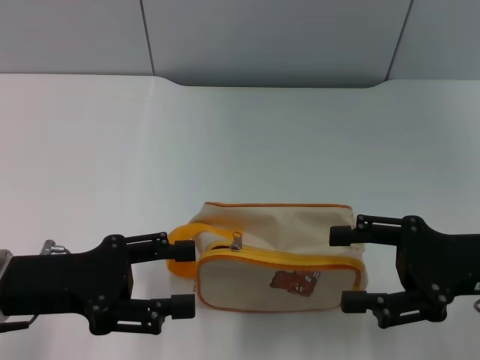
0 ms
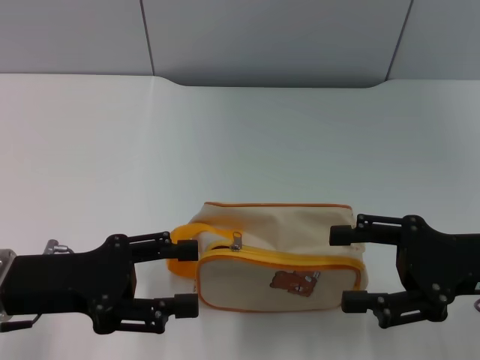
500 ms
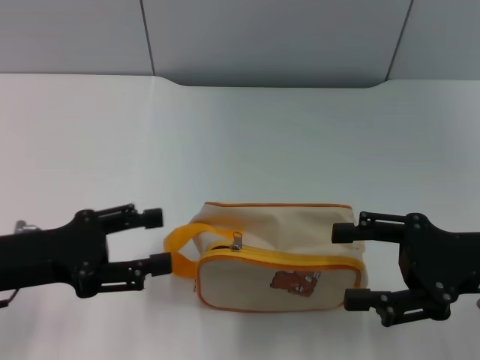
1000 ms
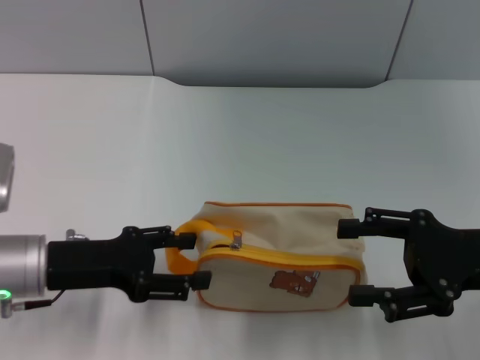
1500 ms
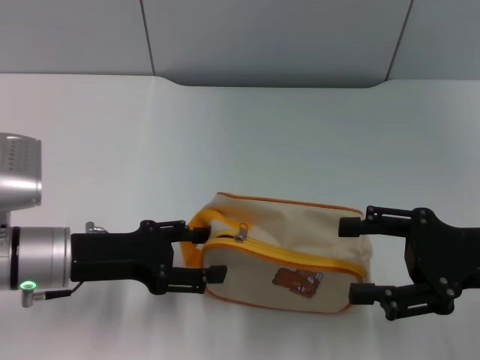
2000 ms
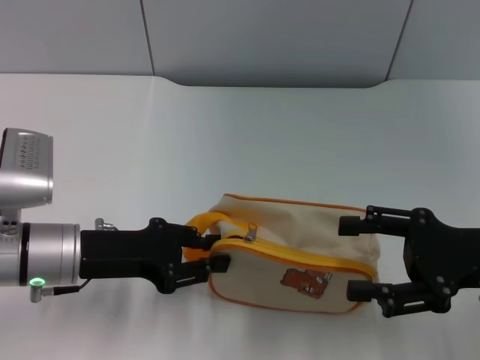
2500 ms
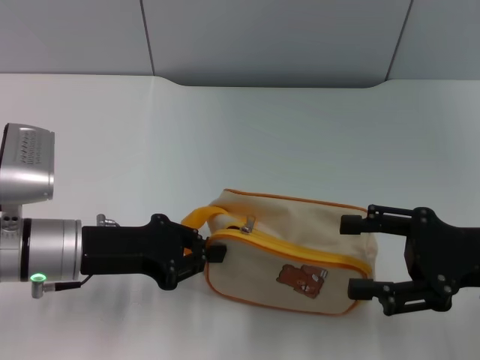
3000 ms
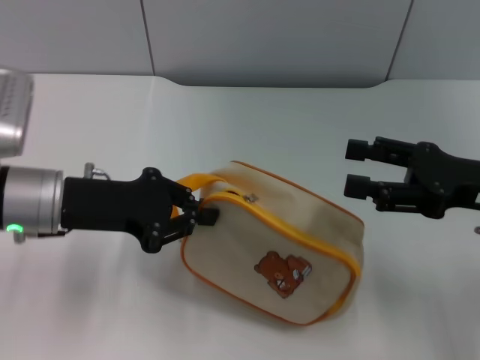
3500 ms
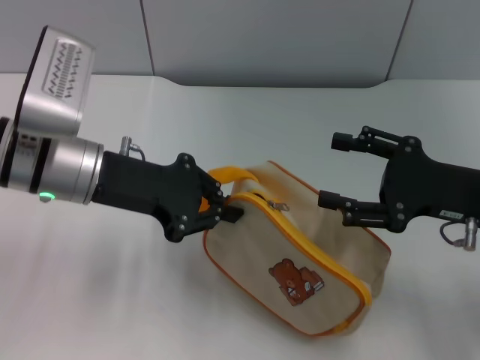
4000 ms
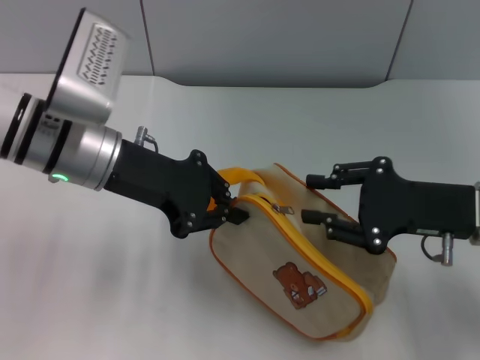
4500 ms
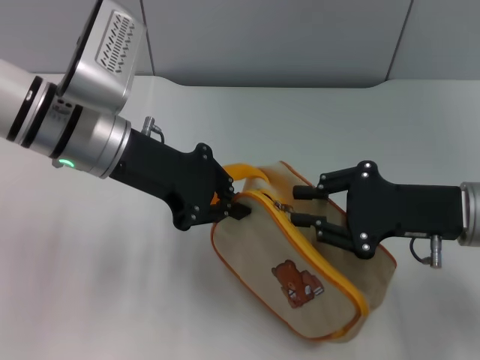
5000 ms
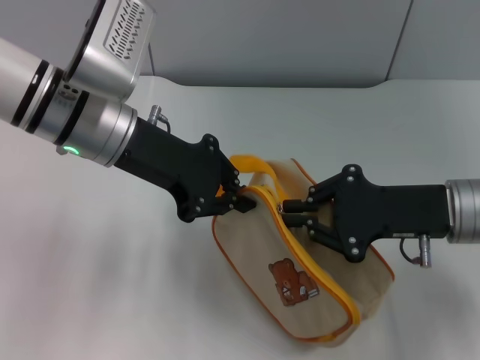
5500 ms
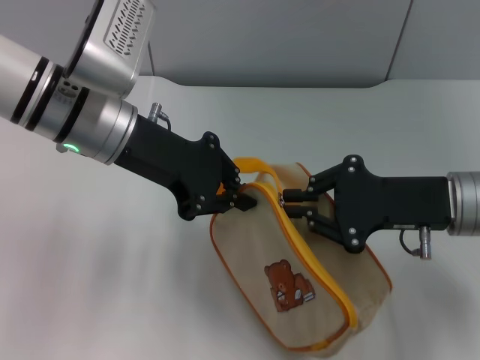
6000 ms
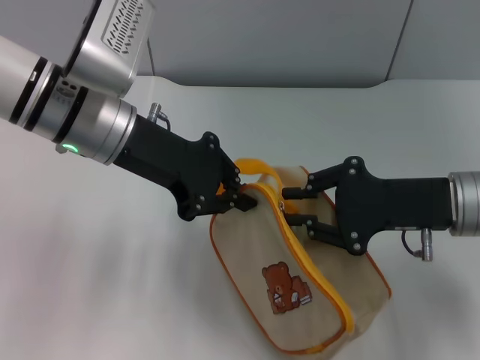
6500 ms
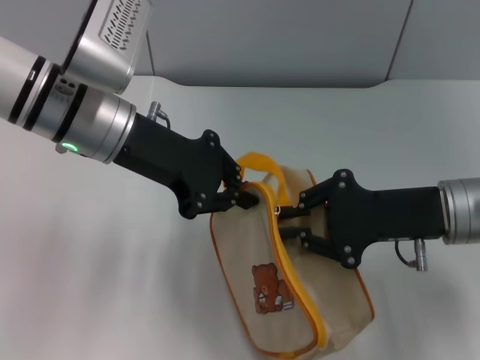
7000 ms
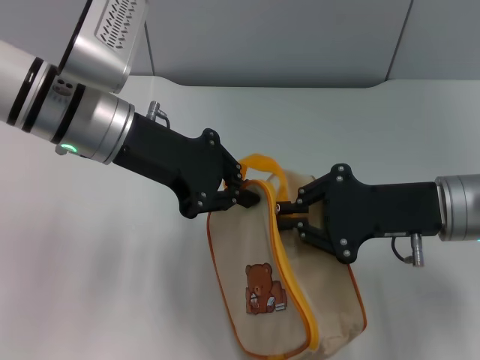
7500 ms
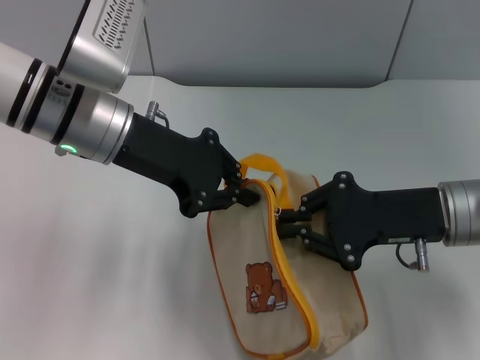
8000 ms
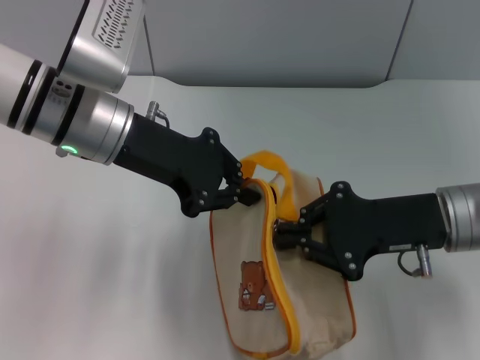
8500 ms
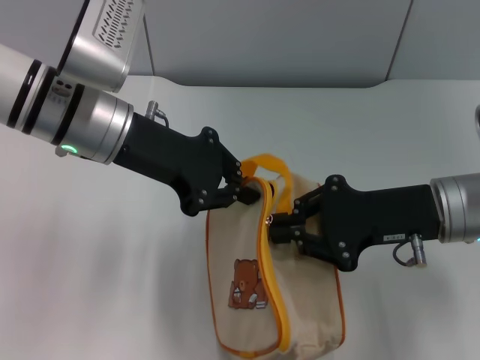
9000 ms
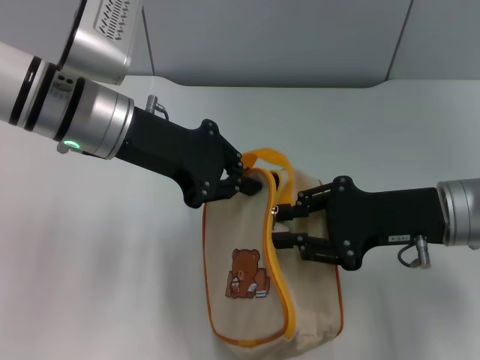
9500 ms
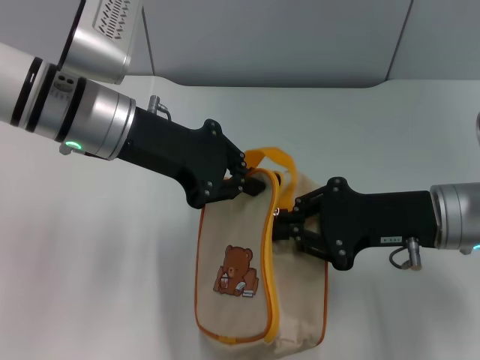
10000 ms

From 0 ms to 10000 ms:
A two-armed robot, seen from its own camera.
Step, from 0 ms to 3500 ms: Pick up the bag with left gripper.
From 0 ms to 2000 ms: The left gripper changes place by some 5 cm.
From 2000 ms to 4000 ms: The left gripper is displaced upward and forward by about 10 cm, and closes.
From 4000 ms to 6000 ms: The right gripper closes its fingers. The left gripper shifts by some 5 cm.
From 6000 ms to 10000 ms: The grippers stay close to where they were, moving slightly.

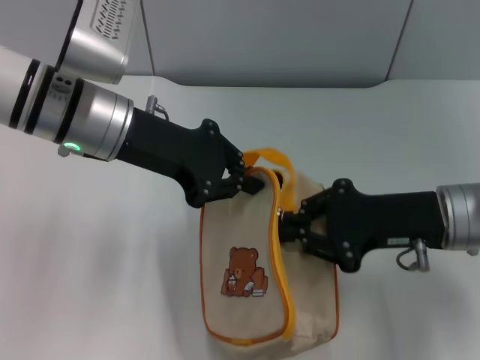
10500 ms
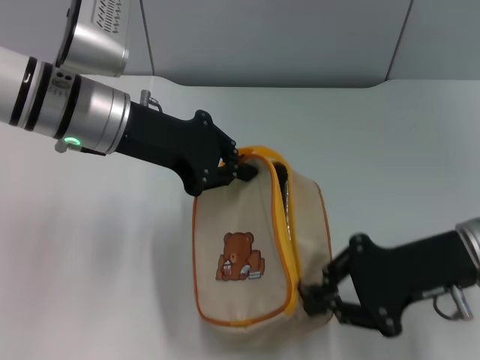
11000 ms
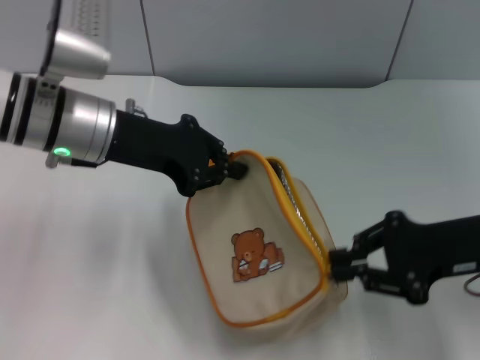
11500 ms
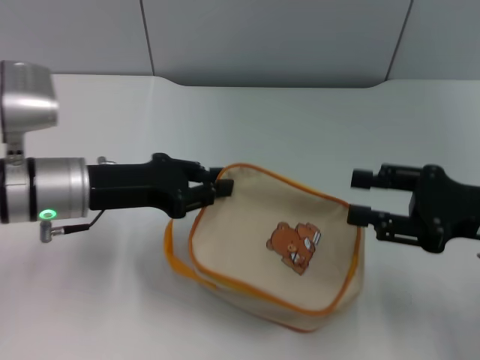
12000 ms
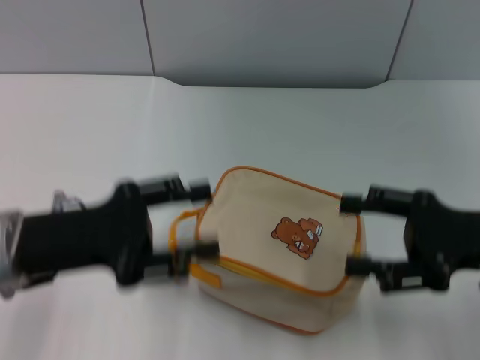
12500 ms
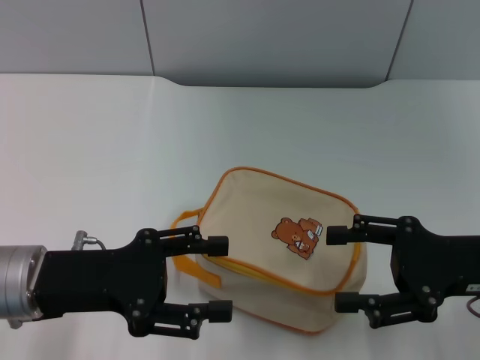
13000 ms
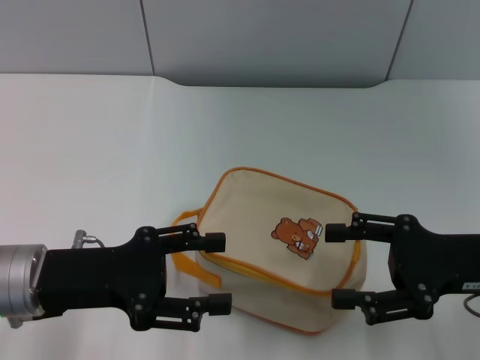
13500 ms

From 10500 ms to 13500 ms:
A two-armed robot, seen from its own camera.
From 10500 ms to 12000 ms: The left gripper travels downward and to the left by approximately 10 cm, while the right gripper travels to the right by about 5 cm, and opens its fingers.
From 12000 ms to 13500 ms: The right gripper opens, while the left gripper is displaced backward by some 10 cm, and opens up.
